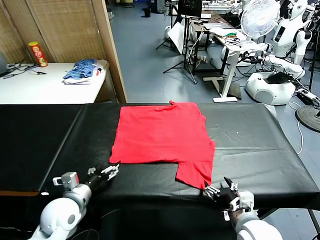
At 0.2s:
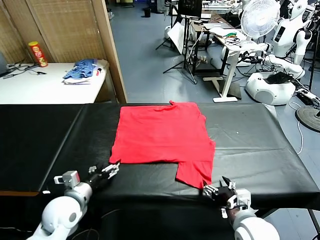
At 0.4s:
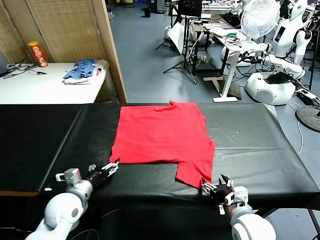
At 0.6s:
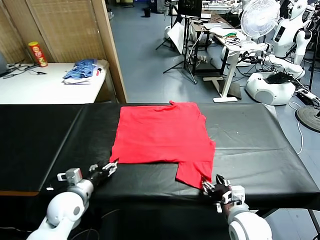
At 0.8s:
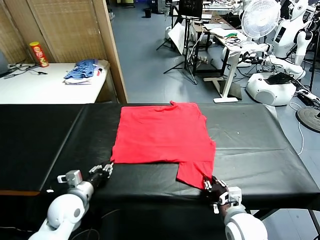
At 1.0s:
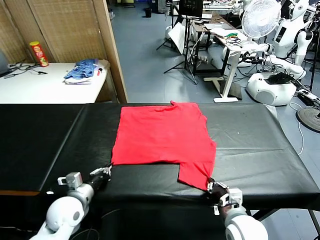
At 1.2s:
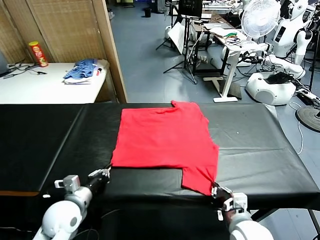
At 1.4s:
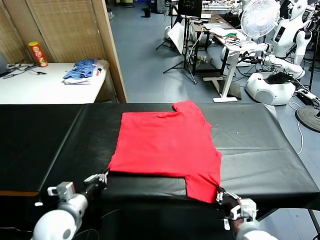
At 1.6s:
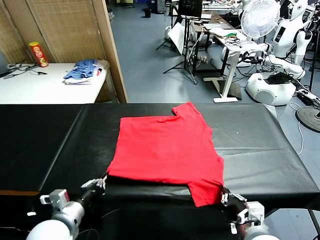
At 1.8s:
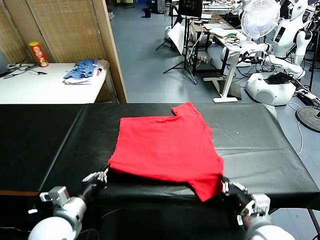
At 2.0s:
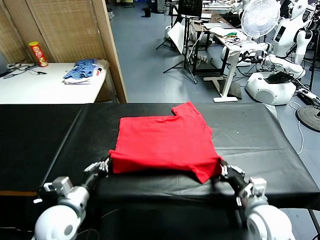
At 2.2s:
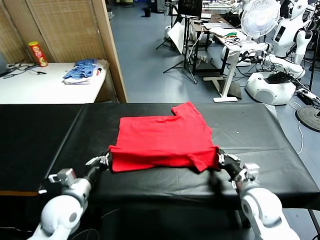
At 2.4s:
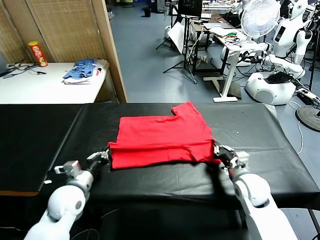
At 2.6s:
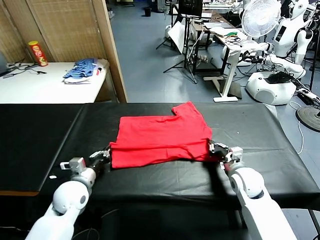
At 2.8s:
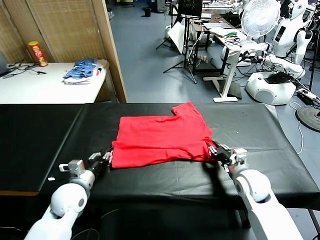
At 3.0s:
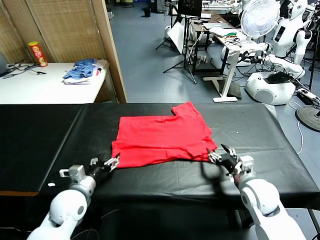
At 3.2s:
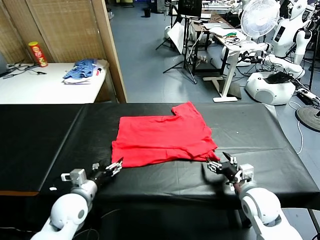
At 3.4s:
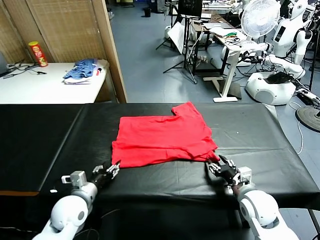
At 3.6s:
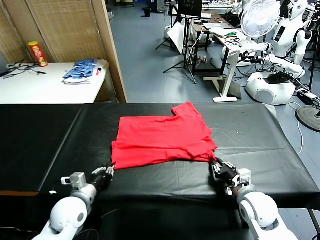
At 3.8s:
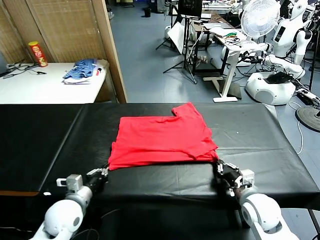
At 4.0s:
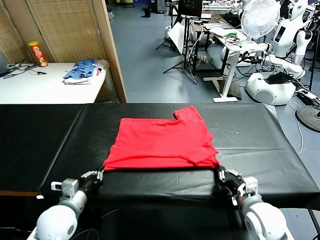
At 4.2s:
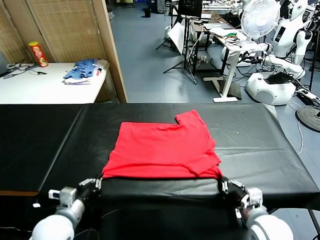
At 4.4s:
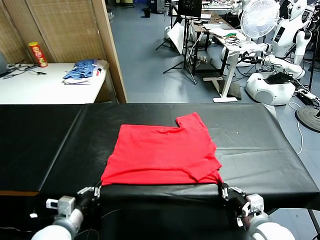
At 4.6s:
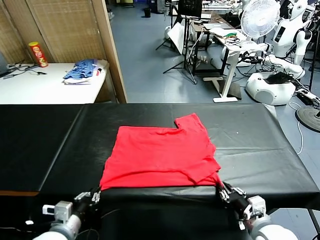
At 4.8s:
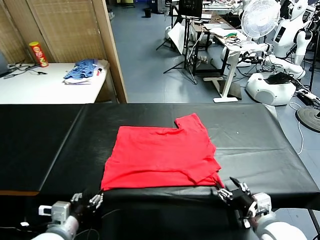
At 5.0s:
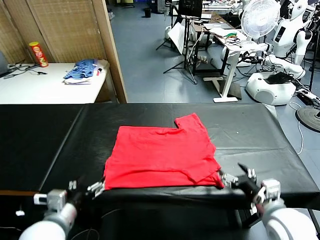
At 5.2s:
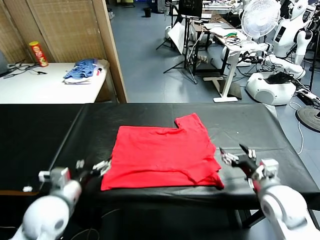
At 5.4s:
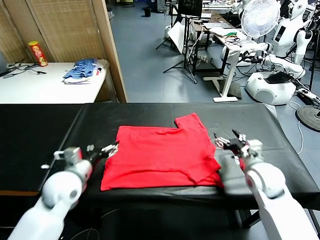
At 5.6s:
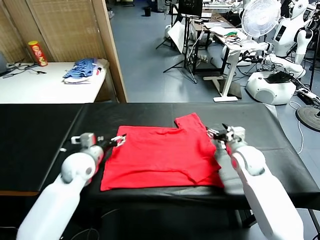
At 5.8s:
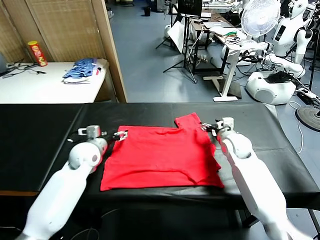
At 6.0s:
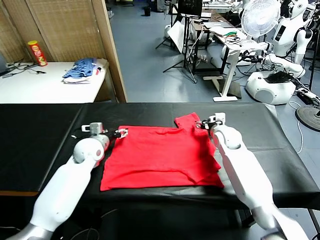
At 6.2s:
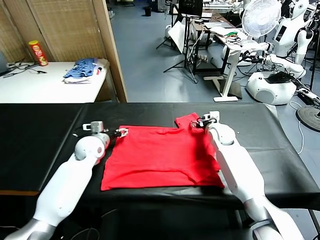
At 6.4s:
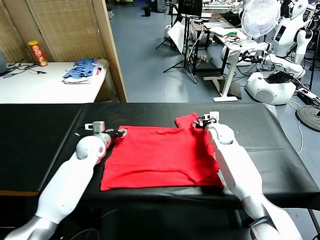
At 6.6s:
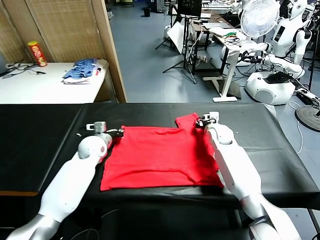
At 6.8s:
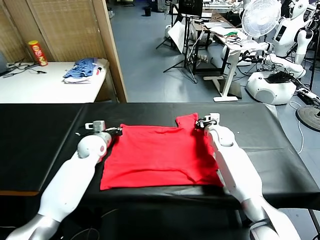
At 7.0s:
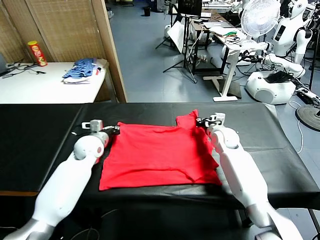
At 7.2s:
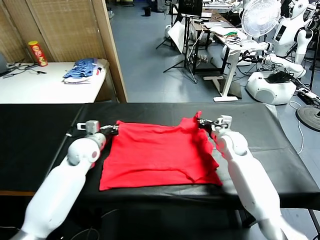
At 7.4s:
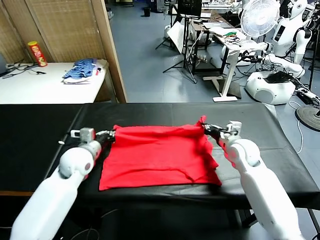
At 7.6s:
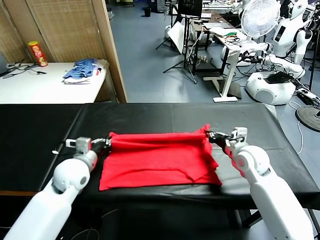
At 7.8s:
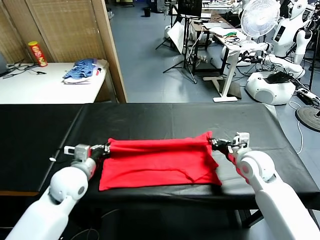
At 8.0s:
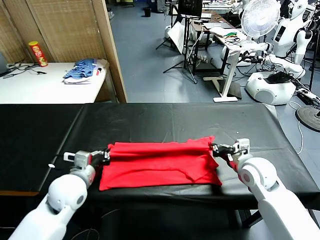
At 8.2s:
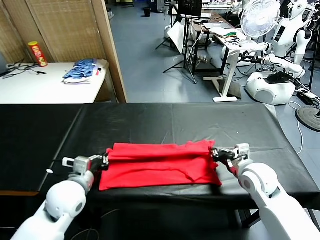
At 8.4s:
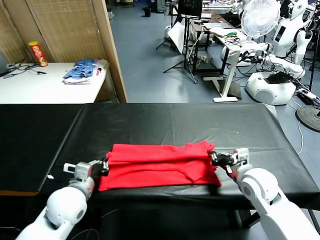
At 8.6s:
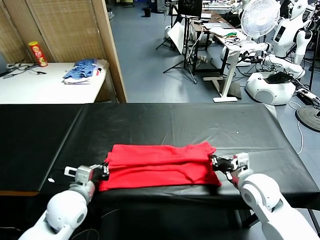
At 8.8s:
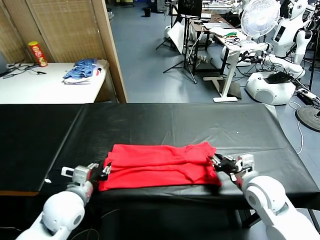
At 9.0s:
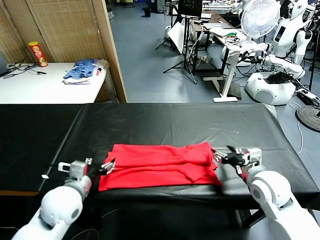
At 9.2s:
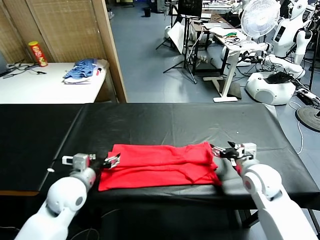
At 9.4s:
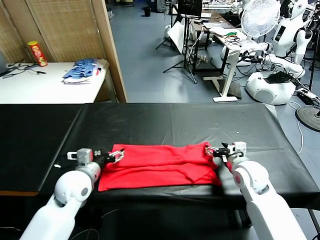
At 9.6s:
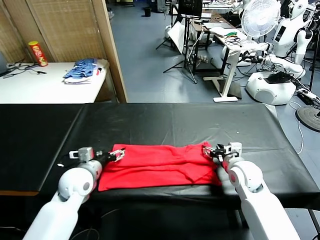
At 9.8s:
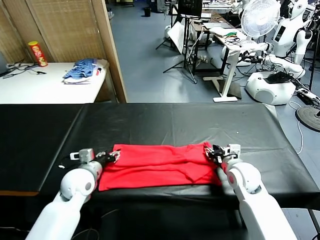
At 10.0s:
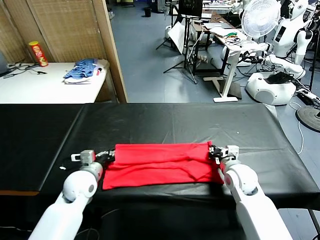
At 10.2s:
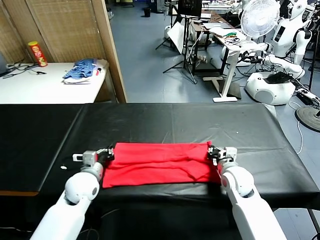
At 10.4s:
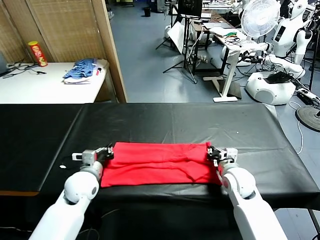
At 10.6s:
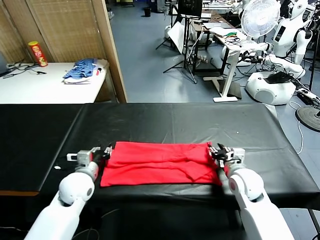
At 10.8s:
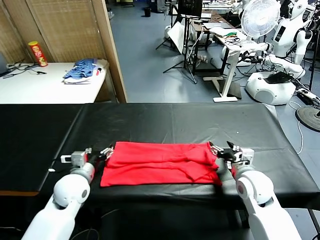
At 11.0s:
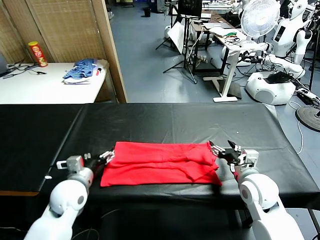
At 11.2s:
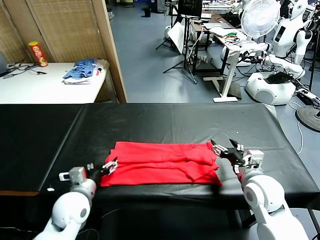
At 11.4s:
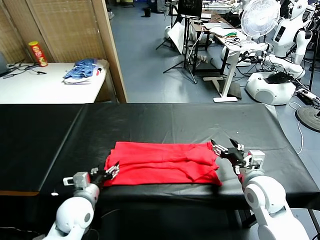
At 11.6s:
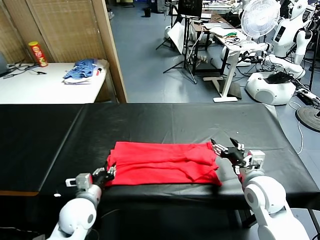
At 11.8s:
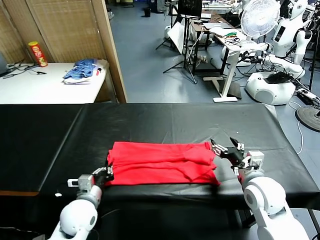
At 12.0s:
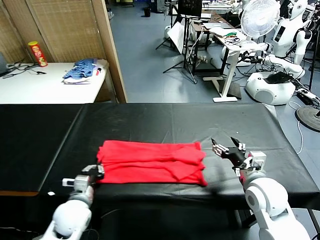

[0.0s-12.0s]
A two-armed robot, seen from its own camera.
Task of the whole recording: fold and organize the clothes.
Step, 0.0s to 1.2s: use both grippers simultaneously to clamp the lower edge of the clothing fabric.
Step, 1.6s to 2.8s: use both grippers to drag the lower edge of the fabric forward and fold it over the upper edge.
Step, 3.0s to 4.8s: Drag the clothes downward with both gripper.
Step, 5.0s to 7.0s: use both grippers simultaneously to clamp the upper edge of the clothing fabric.
Step, 7.2s to 9.0s: use both grippers to drag the upper edge of the fabric backward and fold it over the lower edge.
Step, 9.2s to 12.0s: use the left gripper to clamp the left edge of the fabric.
1.6s to 3.0s: Both grippers move forward, approximately 10 cm. The right gripper opens its fingers; the left gripper opens its fingers.
3.0s to 4.4s: The grippers both shift backward by about 10 cm. The left gripper closes its fingers; the right gripper closes up.
4.4s to 6.0s: Both grippers travel together forward, about 35 cm. The right gripper opens; the left gripper opens.
6.0s to 7.6s: The left gripper goes about 10 cm backward, and closes its fingers. The right gripper travels backward and to the right by approximately 15 cm, and closes its fingers.
7.6s to 9.0s: The two grippers go roughly 5 cm backward. The left gripper opens its fingers. The right gripper opens up.
9.0s to 10.4s: The left gripper shifts roughly 10 cm forward and downward, and closes its fingers, while the right gripper moves downward, some 5 cm, and closes up.
10.4s to 12.0s: The right gripper moves upward and backward, approximately 10 cm, and opens up. Meanwhile the left gripper shifts roughly 10 cm backward, and opens, then closes once more.

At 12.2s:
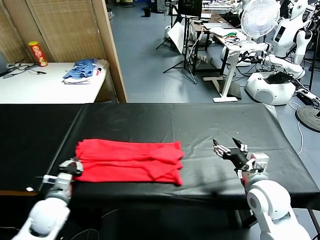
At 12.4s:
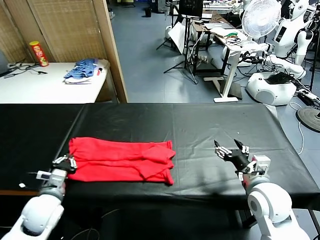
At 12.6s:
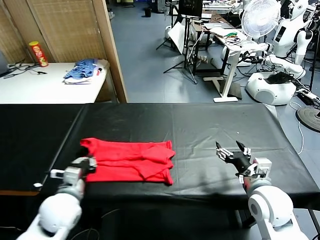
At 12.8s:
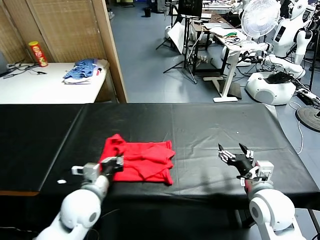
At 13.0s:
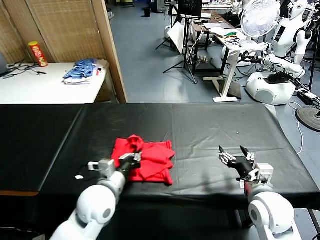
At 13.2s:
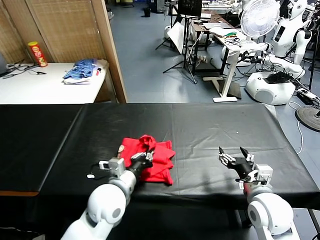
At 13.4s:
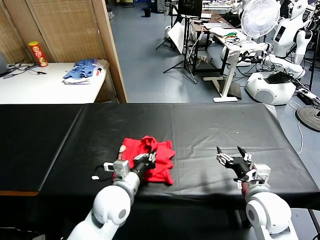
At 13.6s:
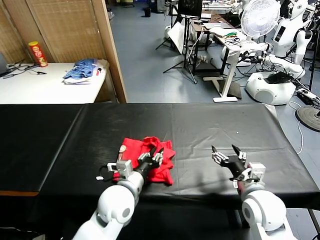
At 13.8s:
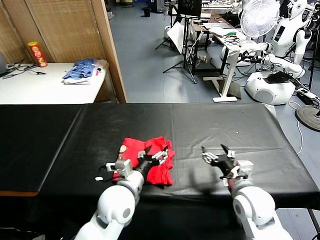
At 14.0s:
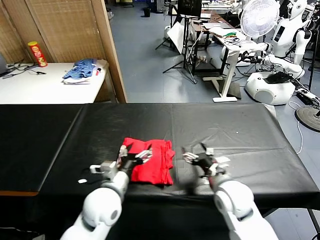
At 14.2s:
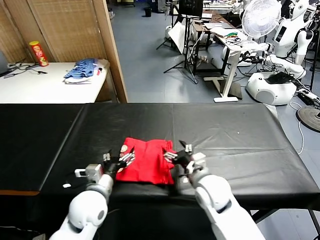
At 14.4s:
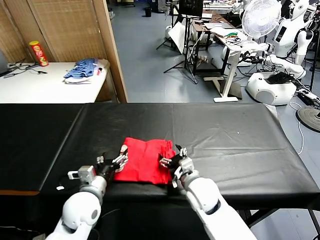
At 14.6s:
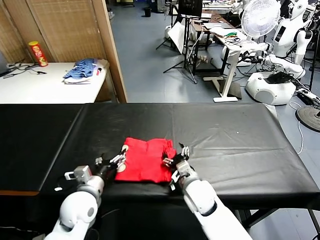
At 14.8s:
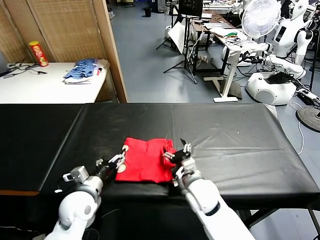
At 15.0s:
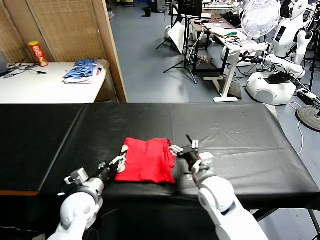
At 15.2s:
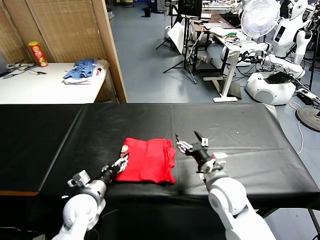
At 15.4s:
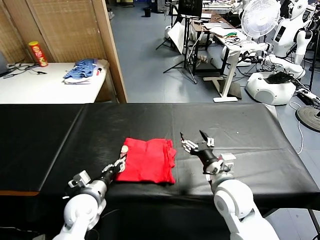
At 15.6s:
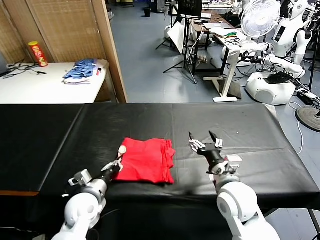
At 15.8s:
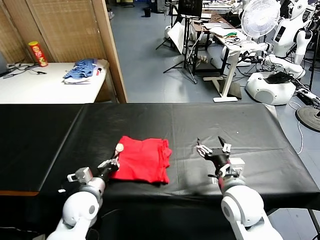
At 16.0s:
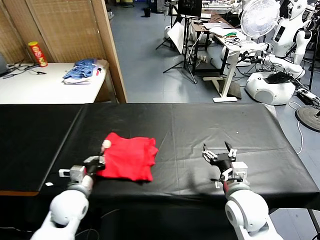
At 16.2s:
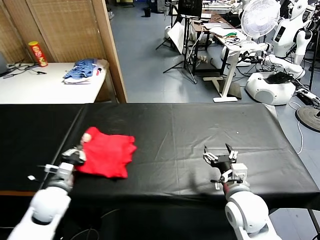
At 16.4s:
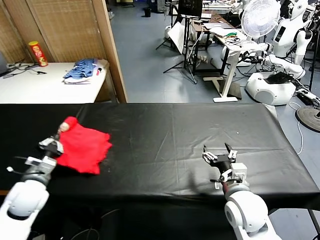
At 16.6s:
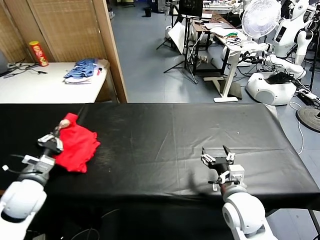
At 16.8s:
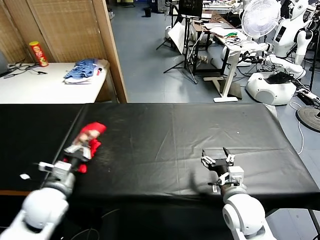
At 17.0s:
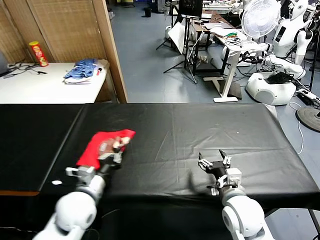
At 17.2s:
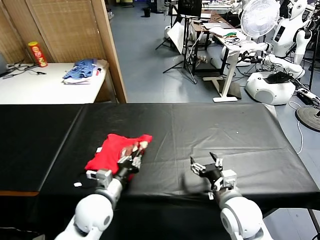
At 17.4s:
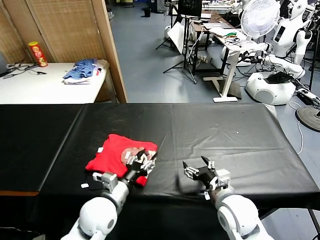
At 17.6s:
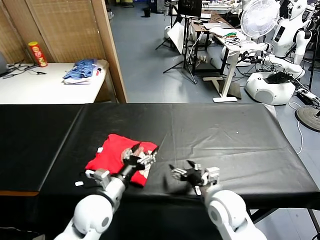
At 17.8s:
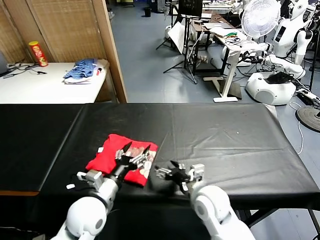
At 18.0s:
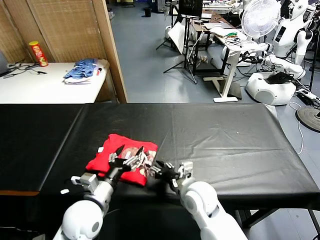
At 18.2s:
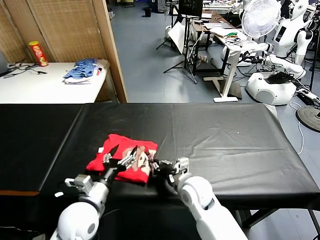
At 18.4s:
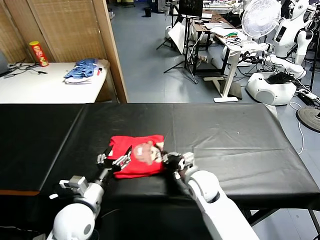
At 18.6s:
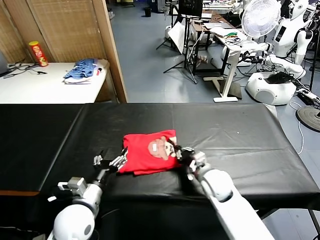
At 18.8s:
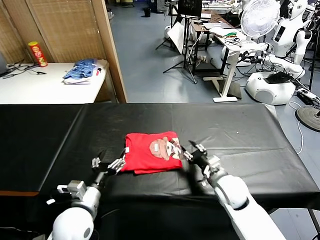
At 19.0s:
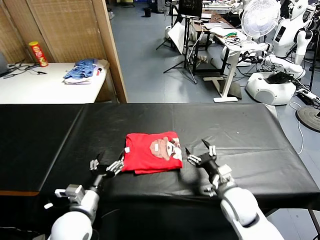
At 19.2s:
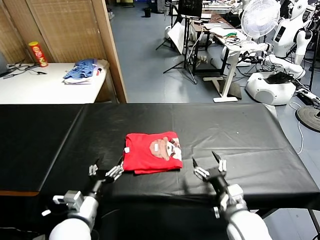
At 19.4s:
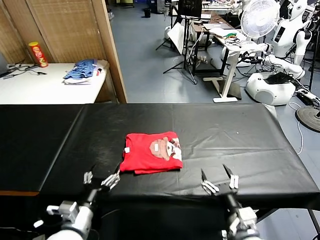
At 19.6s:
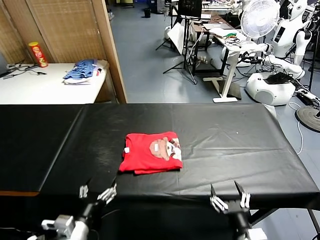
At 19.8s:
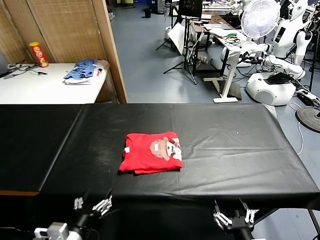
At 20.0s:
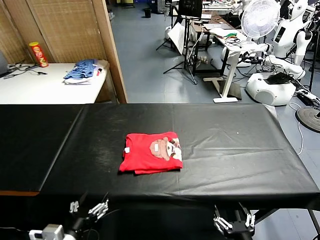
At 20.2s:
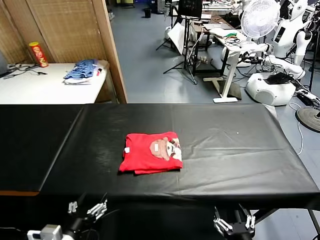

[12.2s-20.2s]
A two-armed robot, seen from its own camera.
Task of the whole recording: fold and organize the clothes.
Step, 12.2s to 13.8s: use the left gripper to drag the left edge of the fabric to the left and folds it over the right edge.
Step, 14.0s to 17.4s: Flip the folded clothes over with left gripper.
Step, 17.6s to 18.8s: Drag the clothes to the center of the table.
12.2s to 13.8s: The right gripper moves roughly 5 cm; the left gripper shifts some 20 cm to the right, and opens.
13.8s to 15.4s: The left gripper goes roughly 15 cm to the left and downward.
15.4s to 17.0s: The left gripper travels upward by some 5 cm, travels to the left and back again, some 15 cm each way, and closes.
17.0s to 18.6s: The left gripper opens. The right gripper travels forward and downward by some 15 cm, and closes up.
18.6s to 20.2s: The left gripper shifts about 15 cm backward; the right gripper goes some 30 cm backward, and opens its fingers.
